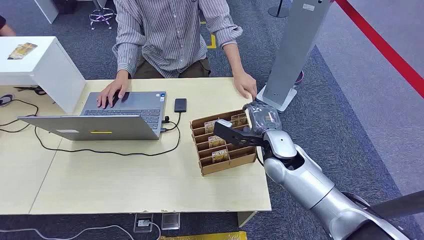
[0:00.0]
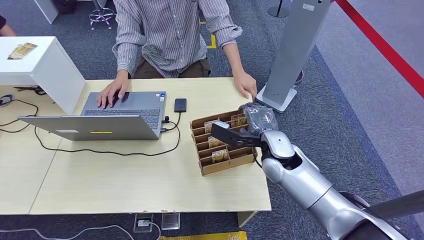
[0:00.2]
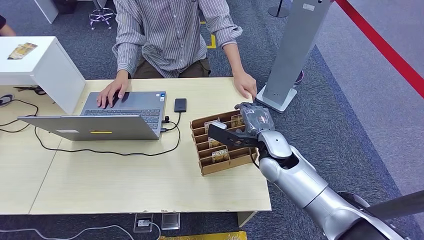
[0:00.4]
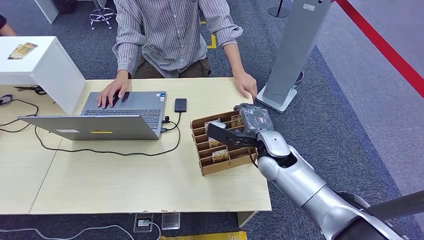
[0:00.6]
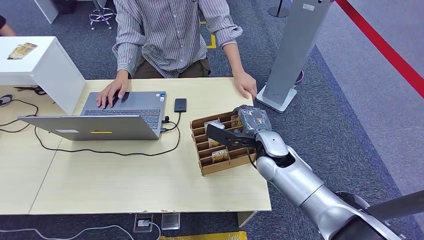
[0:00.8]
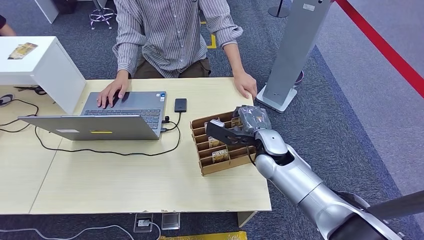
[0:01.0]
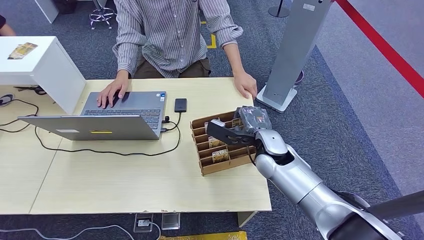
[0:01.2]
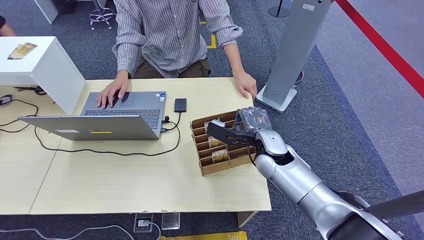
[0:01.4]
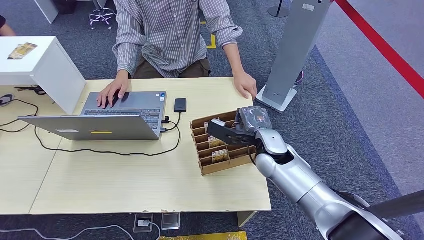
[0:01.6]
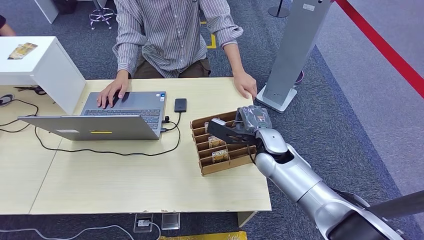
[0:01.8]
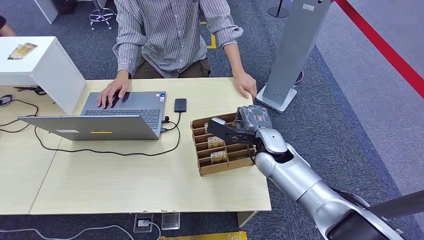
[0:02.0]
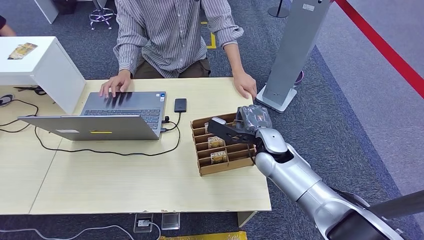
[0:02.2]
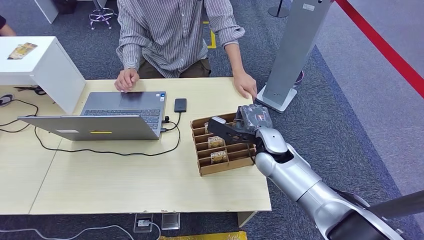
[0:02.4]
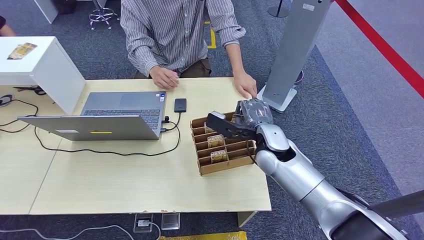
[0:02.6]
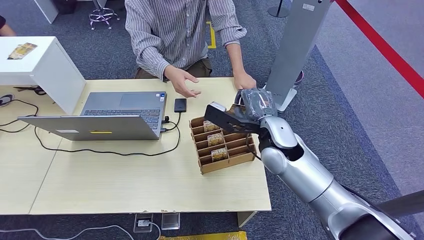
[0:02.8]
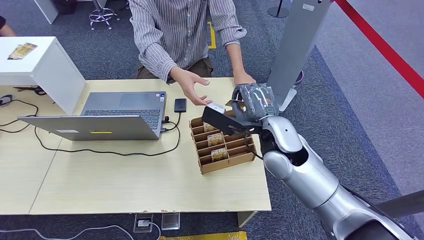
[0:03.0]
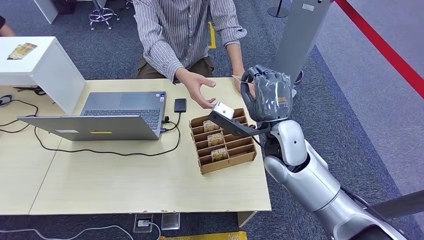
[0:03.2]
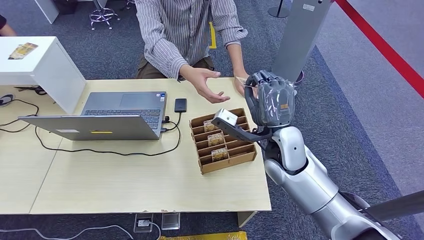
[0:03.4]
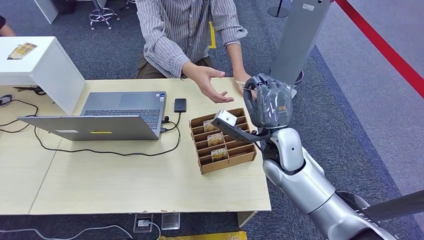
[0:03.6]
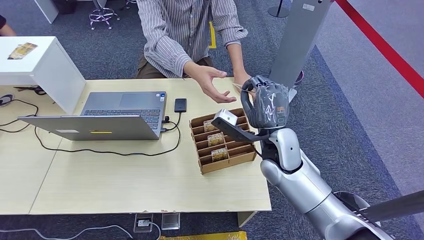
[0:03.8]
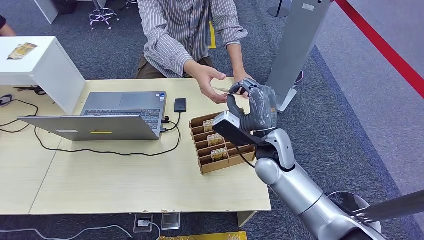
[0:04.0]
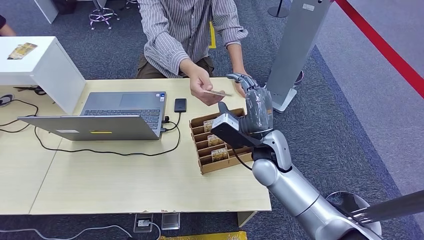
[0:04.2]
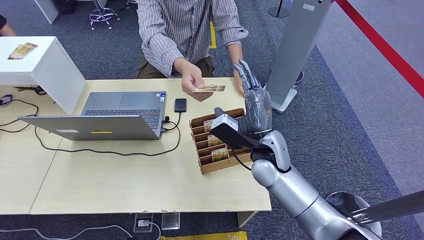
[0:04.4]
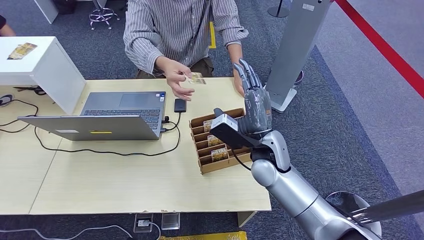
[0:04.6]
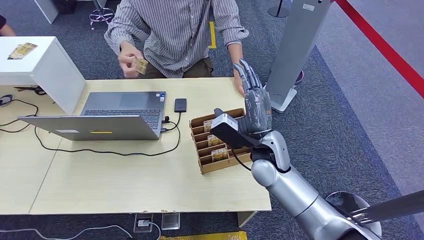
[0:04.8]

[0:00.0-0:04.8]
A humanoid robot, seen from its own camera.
Step, 0:00.0 to 0:02.8: Pick up the room card from the card holder.
Step, 0:03.8 to 0:04.8: Hand the room card to the target.
0:01.6 to 0:03.2: The right hand is displaced upward by about 10 cm.
